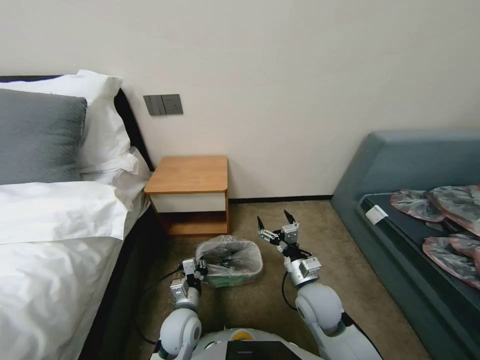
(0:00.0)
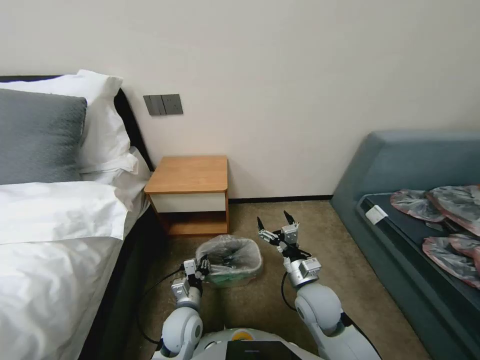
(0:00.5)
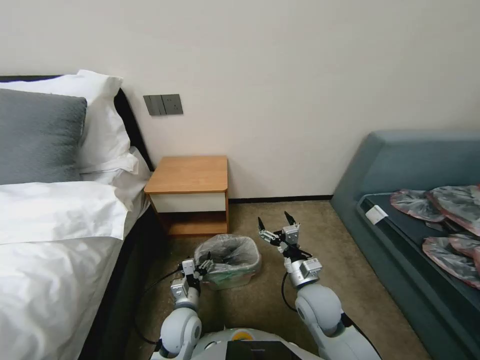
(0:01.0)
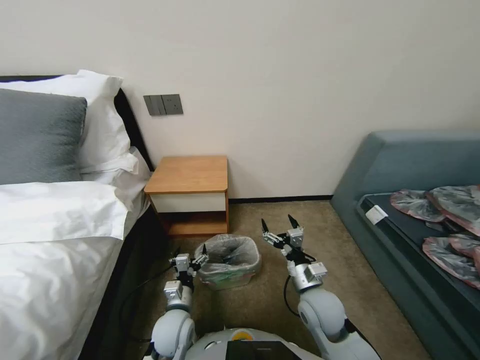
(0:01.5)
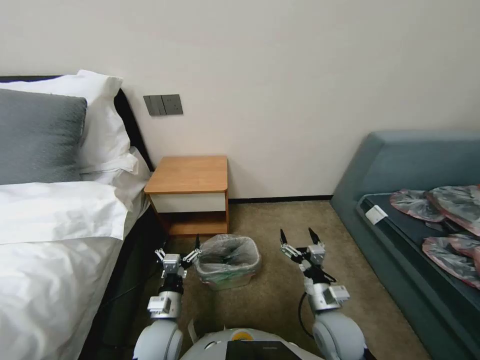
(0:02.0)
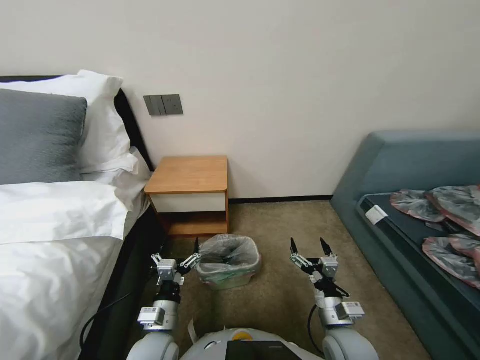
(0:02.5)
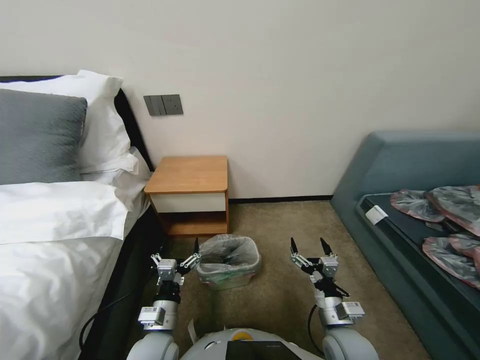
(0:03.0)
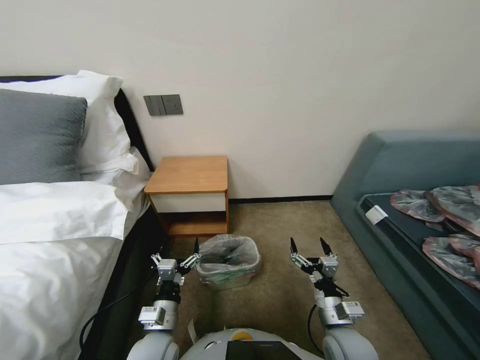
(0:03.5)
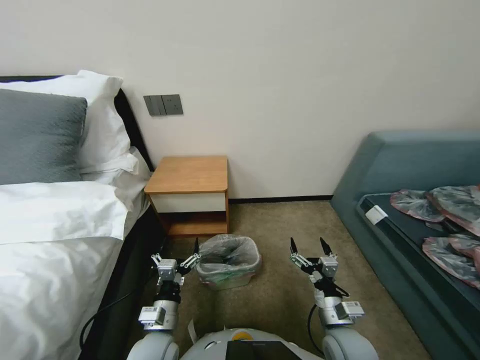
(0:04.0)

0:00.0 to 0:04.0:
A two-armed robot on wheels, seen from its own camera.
Task of the whole recording: Pick up the garbage bag from the table and place it over the trash can.
0:00.0 to 0:02.0: The left gripper opens its fingers. Meanwhile the right gripper ends up approximately 5 cm from where it was.
0:02.0 to 0:04.0: The grippers make only small movements.
